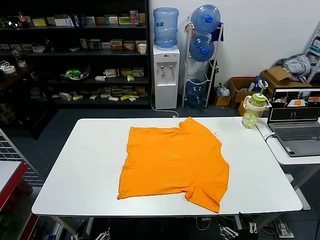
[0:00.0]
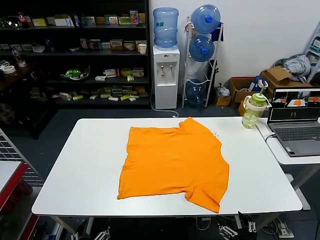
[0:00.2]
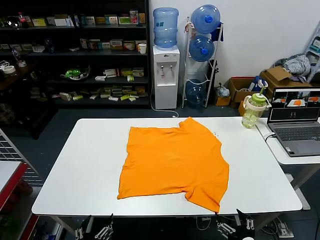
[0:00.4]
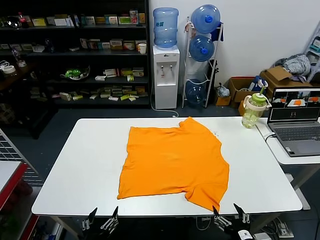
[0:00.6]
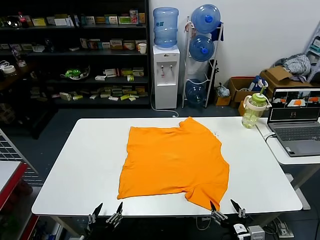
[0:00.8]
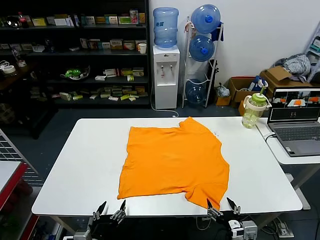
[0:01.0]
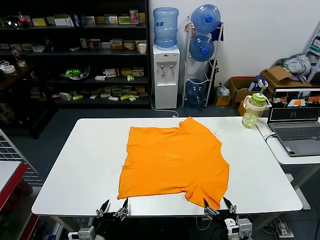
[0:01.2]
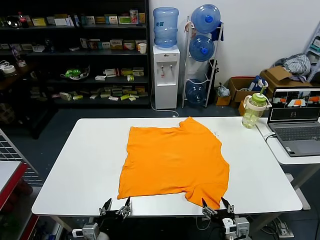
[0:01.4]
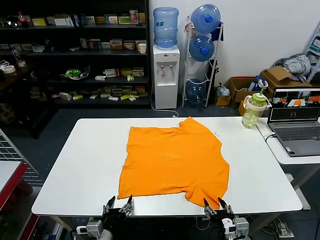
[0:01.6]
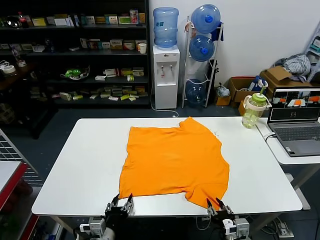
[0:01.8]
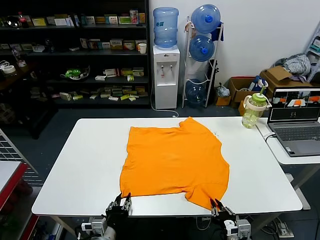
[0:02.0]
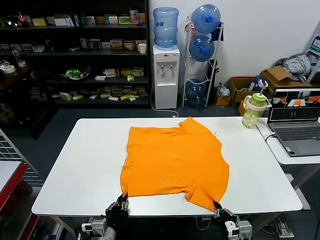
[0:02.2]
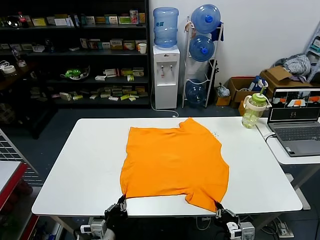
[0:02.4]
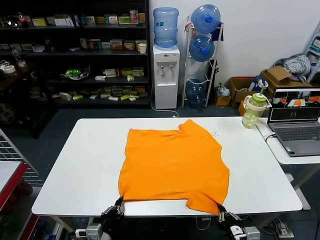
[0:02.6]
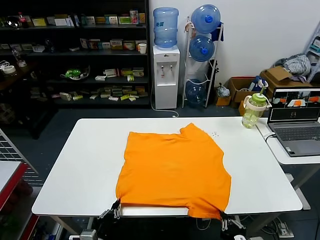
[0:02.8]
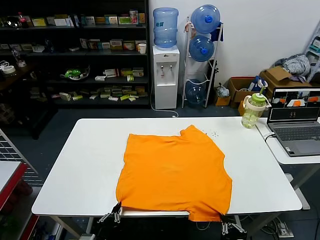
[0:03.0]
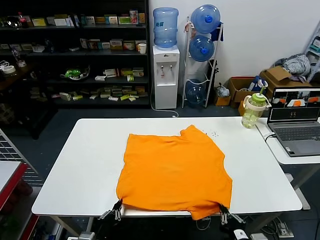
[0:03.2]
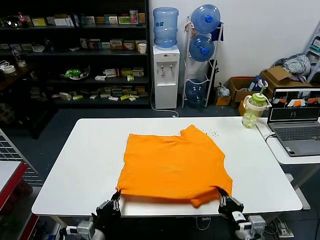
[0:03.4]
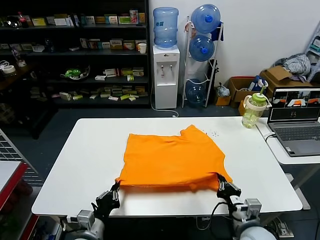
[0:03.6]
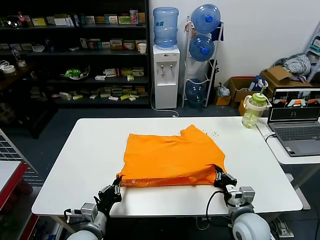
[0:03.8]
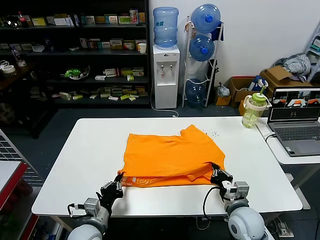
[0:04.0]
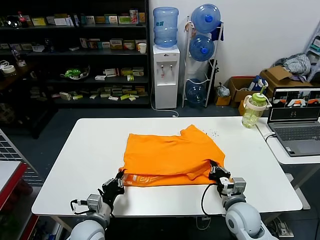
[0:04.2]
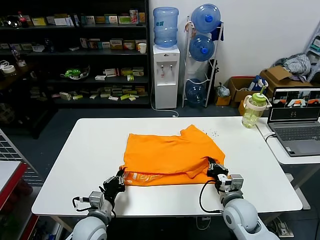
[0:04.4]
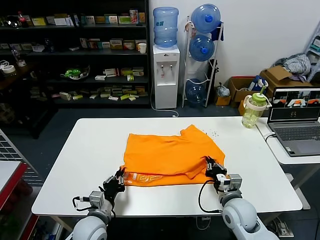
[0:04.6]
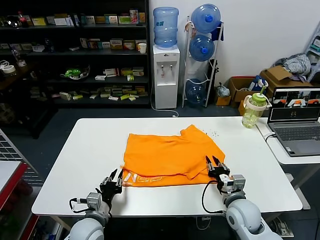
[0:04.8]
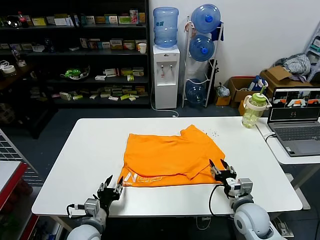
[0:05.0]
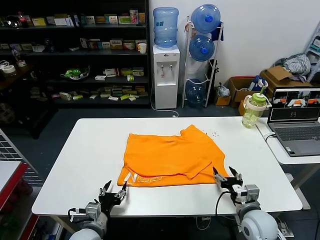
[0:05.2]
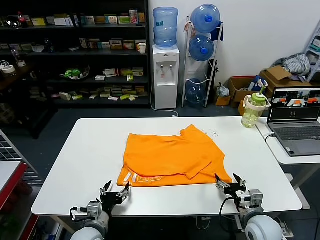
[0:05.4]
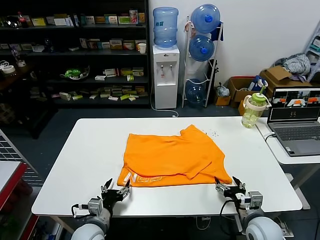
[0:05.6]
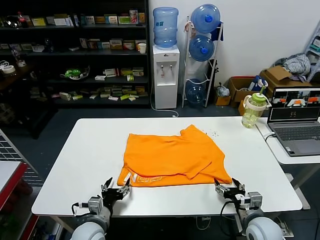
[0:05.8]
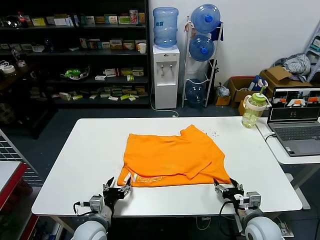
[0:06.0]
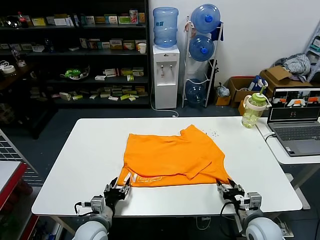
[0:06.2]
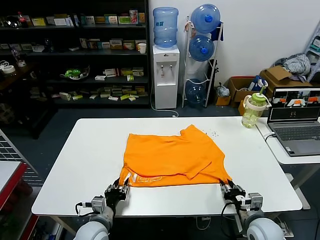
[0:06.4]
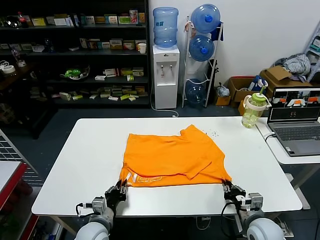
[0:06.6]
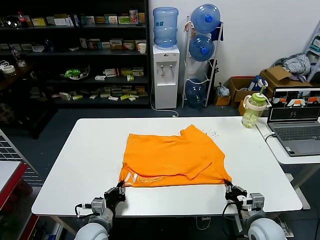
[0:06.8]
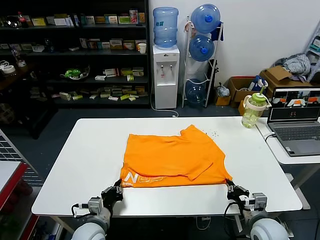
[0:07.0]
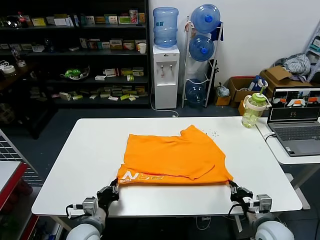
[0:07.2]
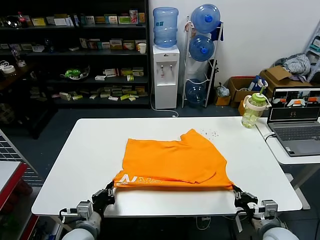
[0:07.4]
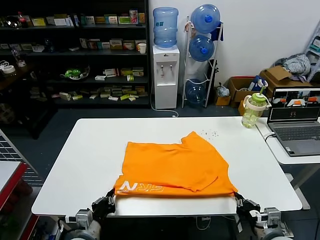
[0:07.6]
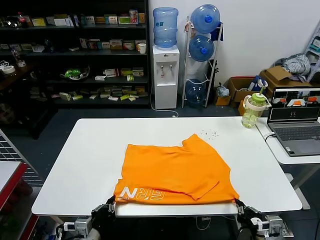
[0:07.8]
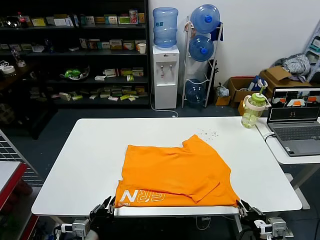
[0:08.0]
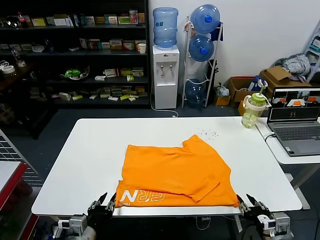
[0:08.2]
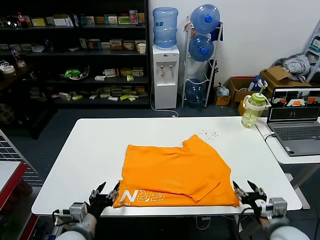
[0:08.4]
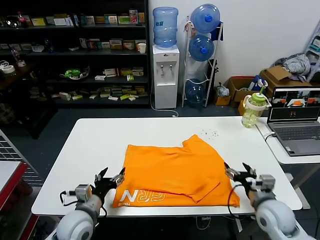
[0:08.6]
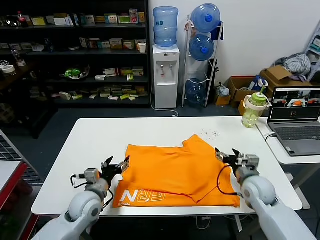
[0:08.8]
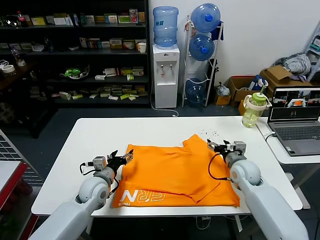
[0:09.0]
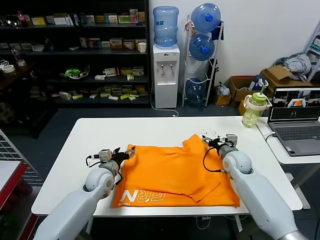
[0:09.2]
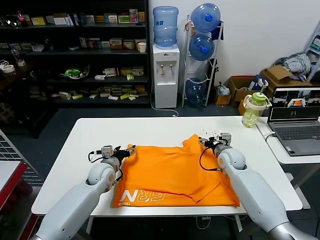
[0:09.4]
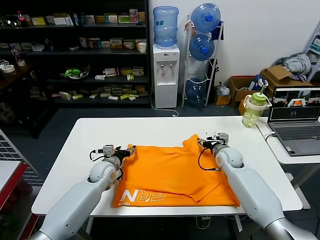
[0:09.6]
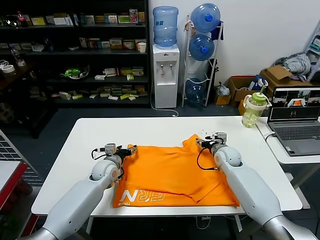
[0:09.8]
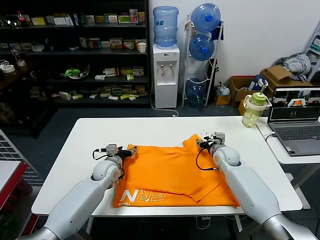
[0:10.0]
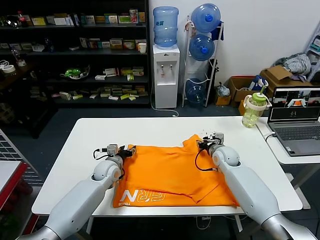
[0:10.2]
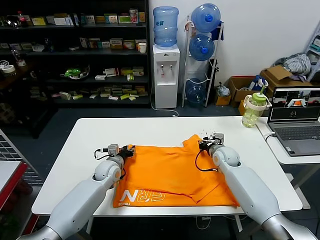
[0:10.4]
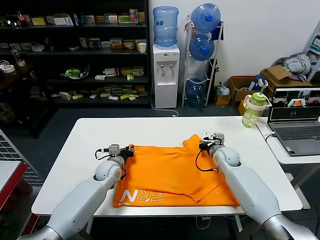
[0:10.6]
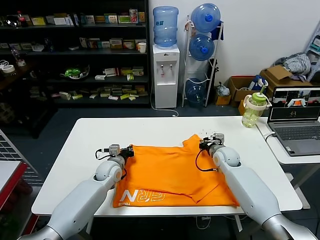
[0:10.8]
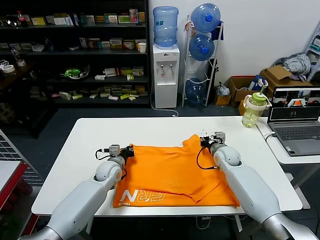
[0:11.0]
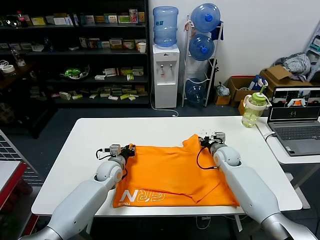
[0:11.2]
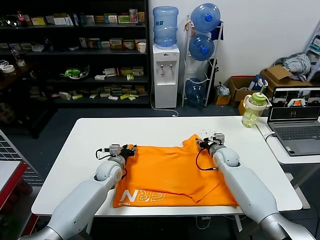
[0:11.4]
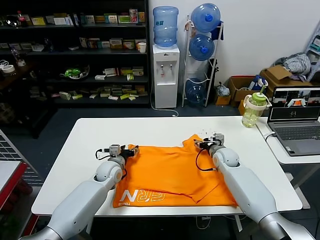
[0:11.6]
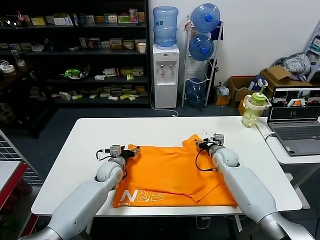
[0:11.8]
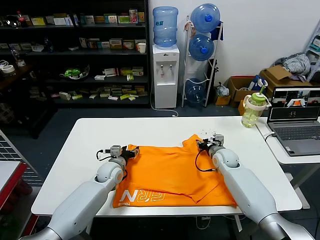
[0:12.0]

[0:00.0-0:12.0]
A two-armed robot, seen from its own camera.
Task of the whole recording: fold and organize the clothes.
Step, 0:00.0 to 0:02.2: use both grippers simultaneously to clamp the lower edge of the clothing fabric.
Step, 0:02.4 to 0:04.8: use both grippers to drag the lower edge of the fabric forward and fold it over the upper edge.
Step, 0:05.0 to 0:08.0: Drag the clothes downward with both gripper.
0:01.6 to 0:03.0: The left gripper ends up about 5 cm from where it was, and closes its fingers. Meanwhile the right gripper heads backward, covering approximately 5 cm, and closes up.
0:03.0 to 0:04.4: The right gripper shifts approximately 20 cm forward. Meanwhile the left gripper shifts about 10 cm forward.
0:04.4 to 0:06.0: The right gripper travels to the right by some 5 cm, and opens its fingers, while the left gripper opens.
0:06.0 to 0:07.6: The two grippers go approximately 5 cm backward. The left gripper closes its fingers, while the right gripper closes up.
0:07.6 to 0:09.0: The two grippers go approximately 20 cm forward. The right gripper opens up; the left gripper opens its fingers.
0:09.0 to 0:10.4: The grippers both shift forward by about 10 cm. The left gripper closes, while the right gripper closes.
0:10.4 to 0:12.0: The left gripper closes and opens again. Meanwhile the right gripper opens and closes again.

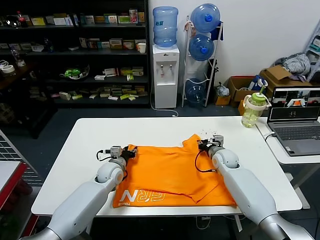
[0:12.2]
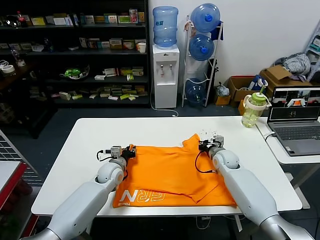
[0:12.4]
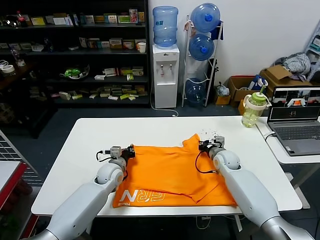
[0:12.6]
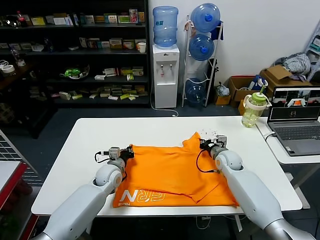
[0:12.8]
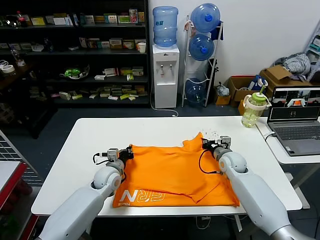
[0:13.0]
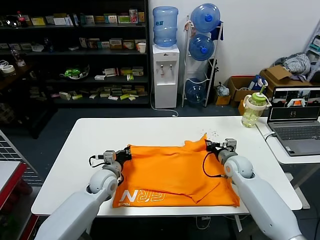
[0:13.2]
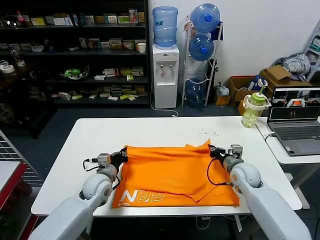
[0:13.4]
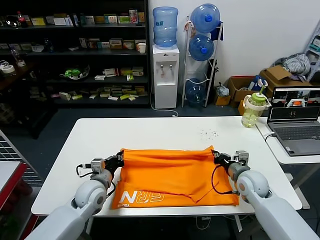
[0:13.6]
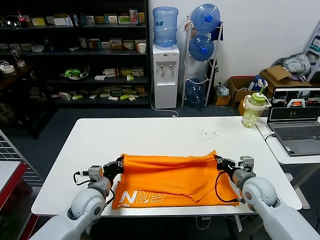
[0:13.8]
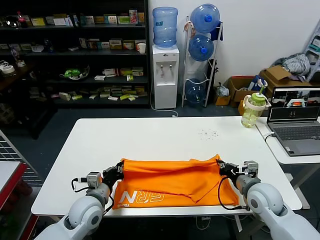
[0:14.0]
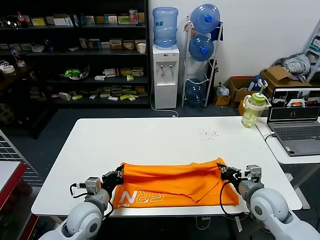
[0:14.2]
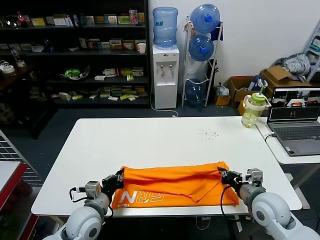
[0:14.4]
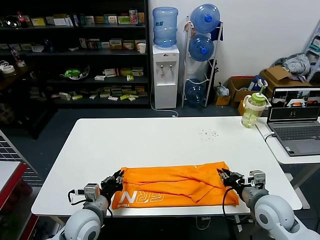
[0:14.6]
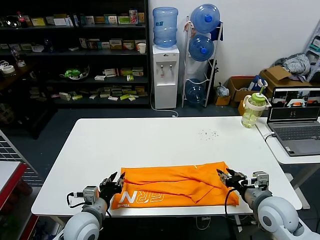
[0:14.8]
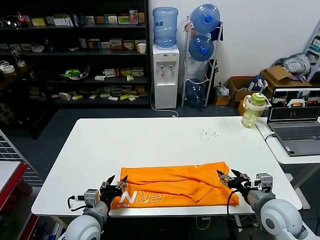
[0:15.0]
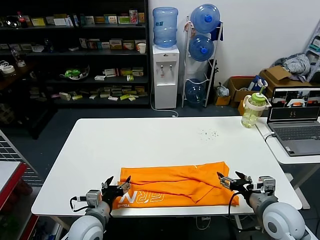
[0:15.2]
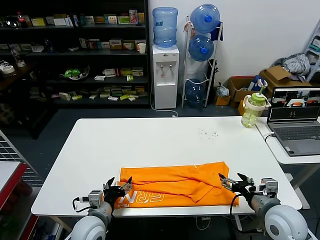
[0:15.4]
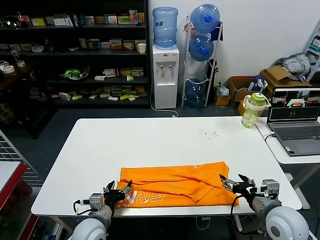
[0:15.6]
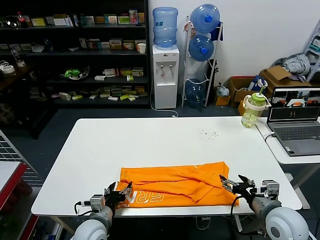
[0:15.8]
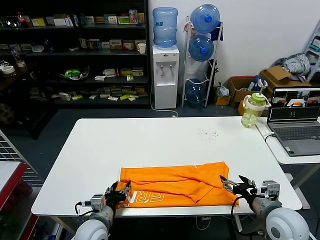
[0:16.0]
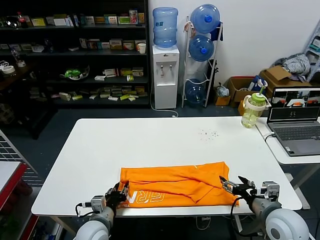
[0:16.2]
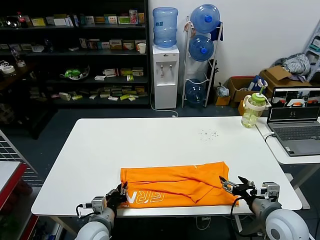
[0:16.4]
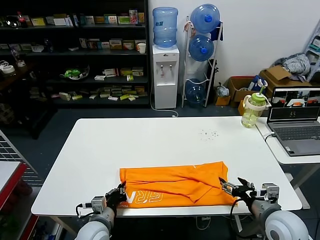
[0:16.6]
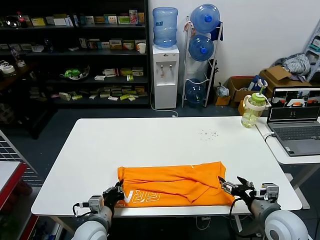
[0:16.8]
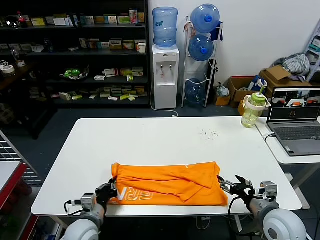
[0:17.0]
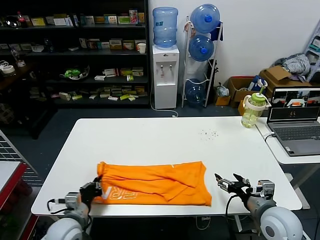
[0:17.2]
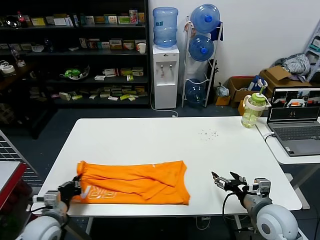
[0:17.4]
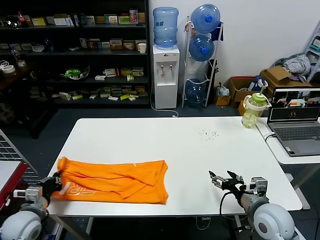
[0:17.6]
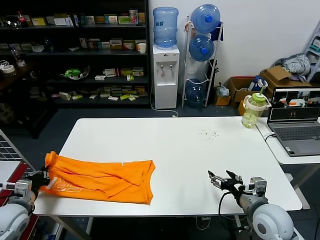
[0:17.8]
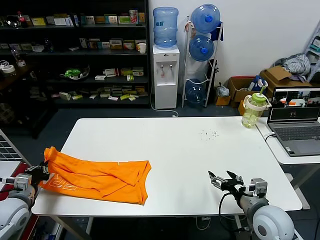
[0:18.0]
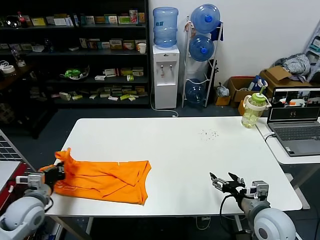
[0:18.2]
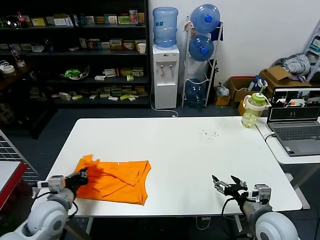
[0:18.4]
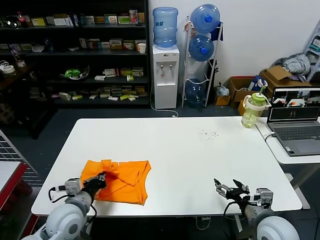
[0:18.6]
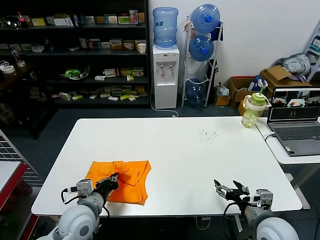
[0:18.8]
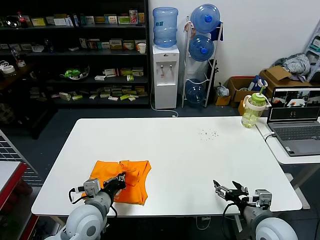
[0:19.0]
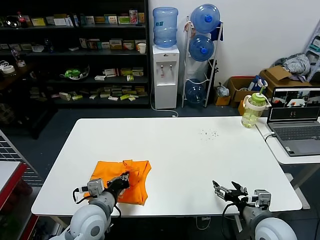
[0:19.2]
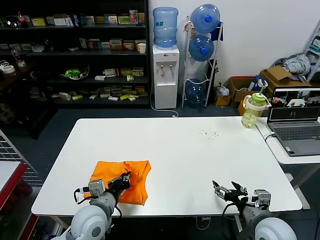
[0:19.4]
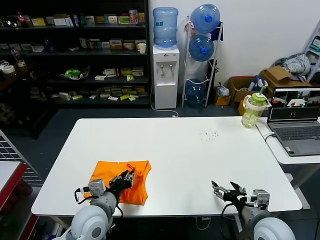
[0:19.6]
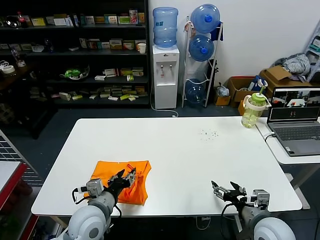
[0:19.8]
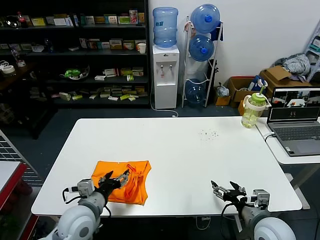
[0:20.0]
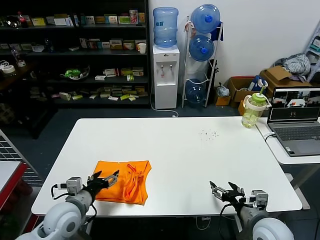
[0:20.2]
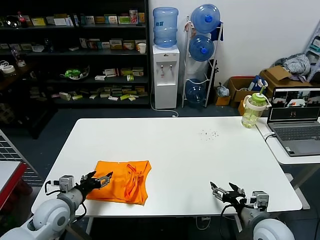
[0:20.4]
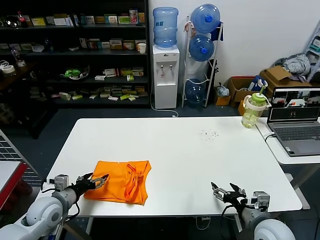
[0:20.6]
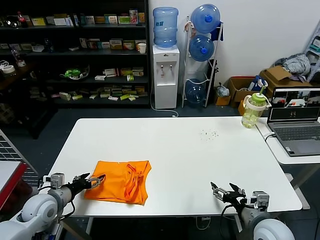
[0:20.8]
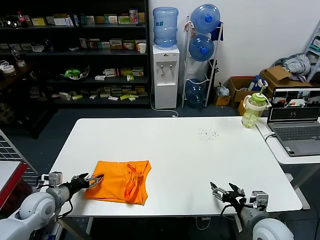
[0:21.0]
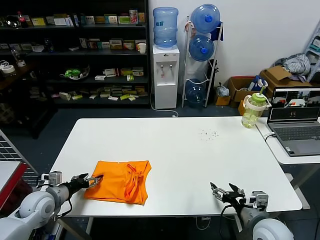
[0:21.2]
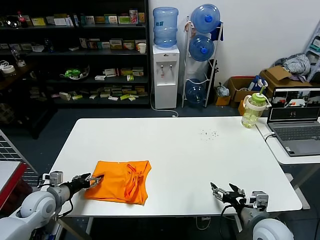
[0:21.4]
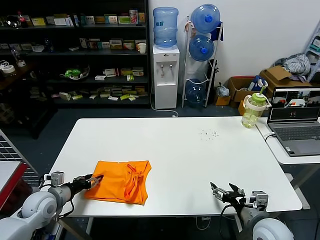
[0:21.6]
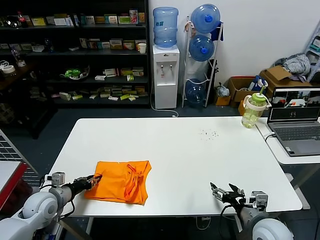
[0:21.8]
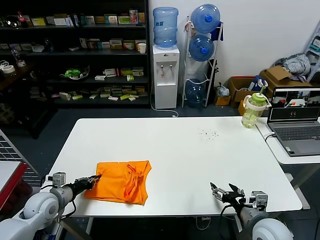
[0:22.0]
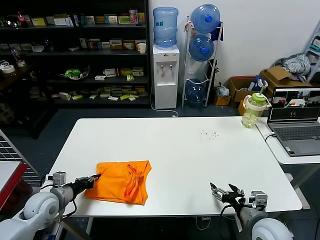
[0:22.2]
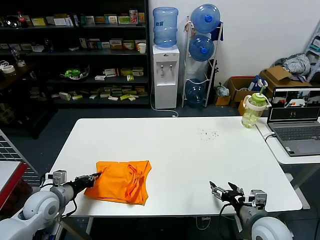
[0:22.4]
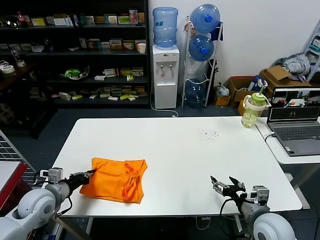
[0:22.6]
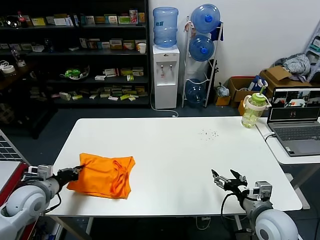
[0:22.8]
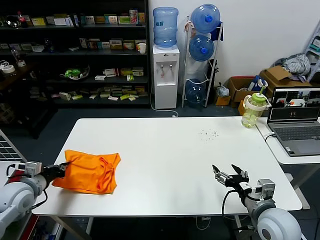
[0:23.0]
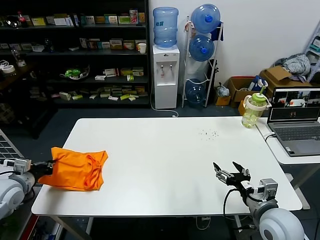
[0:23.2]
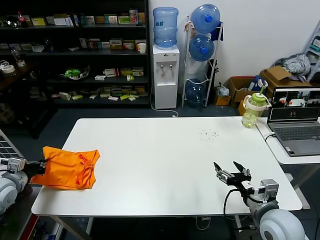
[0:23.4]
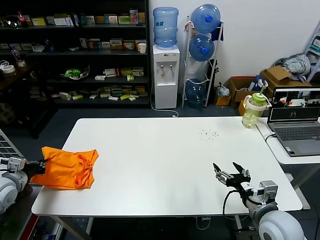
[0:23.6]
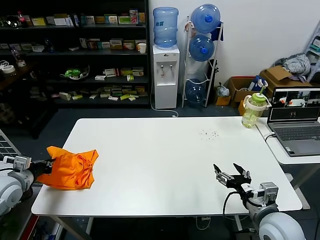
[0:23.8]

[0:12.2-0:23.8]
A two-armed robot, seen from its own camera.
Task of the whole recording: fold and organize the clothes.
Step, 0:12.8 to 0:14.6: use both grippers to drag the upper edge of the fabric backward and fold it over the lower edge.
Step, 0:14.8 to 0:16.4: use the left gripper to clamp the left edge of the fabric.
Step, 0:16.6 to 0:19.6: use the left gripper to drag the left edge of the fabric to the left and folds it over the right edge.
0:12.2 to 0:13.6: Both grippers move backward, about 10 cm. The left gripper closes.
0:13.6 to 0:15.0: The left gripper goes about 10 cm backward, and opens up, while the right gripper heads backward and upward, covering approximately 15 cm, and opens up.
0:15.0 to 0:16.6: The left gripper travels downward by about 5 cm, and closes up.
0:16.6 to 0:18.0: The left gripper moves to the left, some 25 cm.
0:18.0 to 0:19.4: The left gripper heads to the right, covering roughly 25 cm.
0:19.4 to 0:21.0: The left gripper heads to the left, covering about 20 cm, and opens its fingers.
0:21.0 to 0:22.4: The left gripper closes.
0:22.4 to 0:23.8: The left gripper moves to the left and upward, roughly 15 cm.
